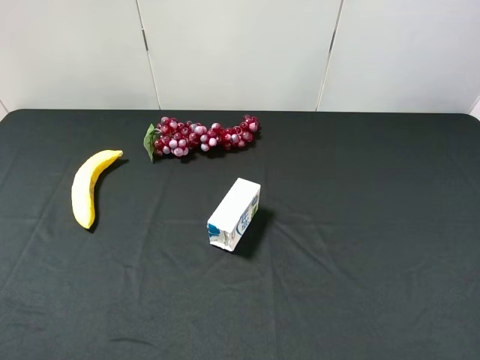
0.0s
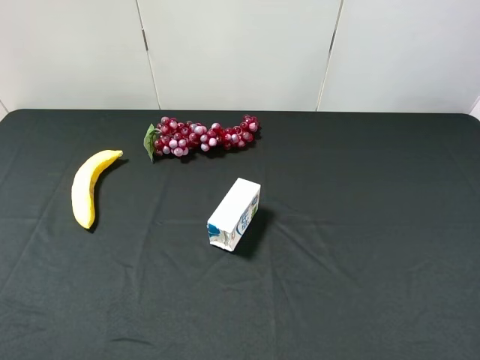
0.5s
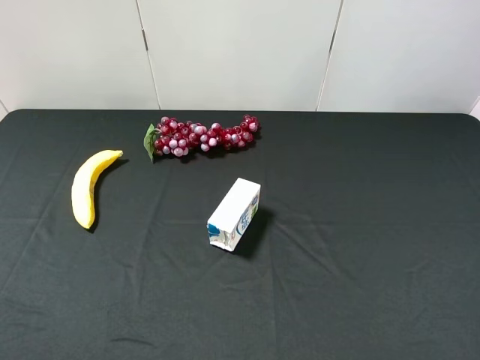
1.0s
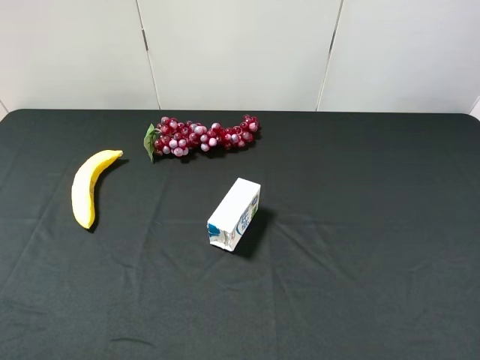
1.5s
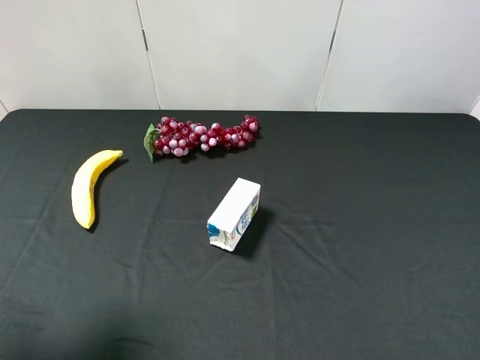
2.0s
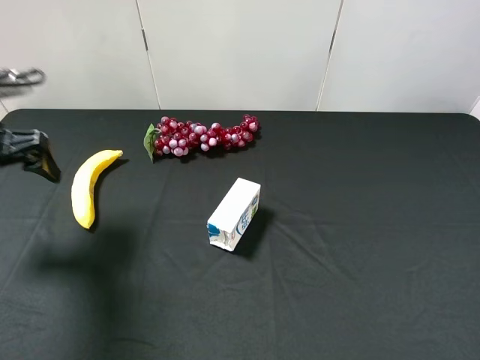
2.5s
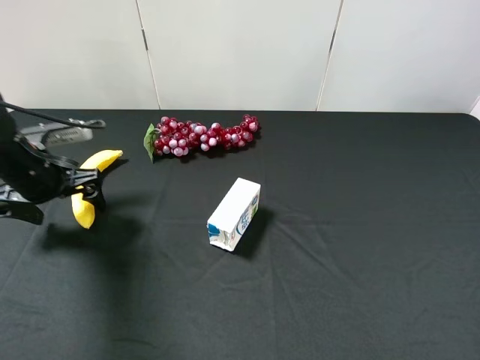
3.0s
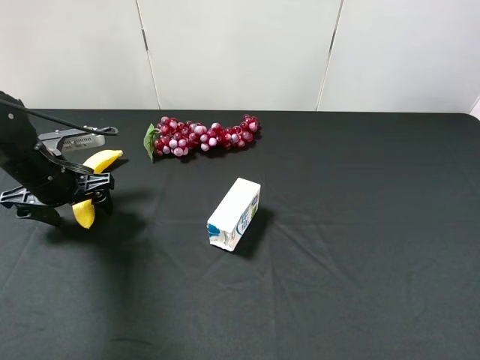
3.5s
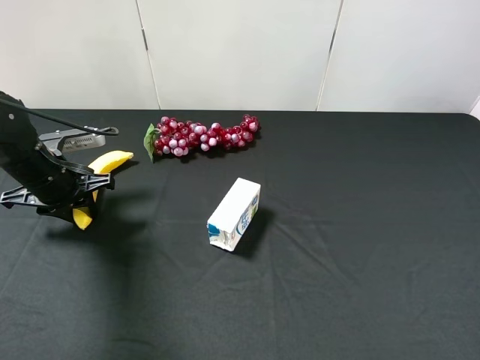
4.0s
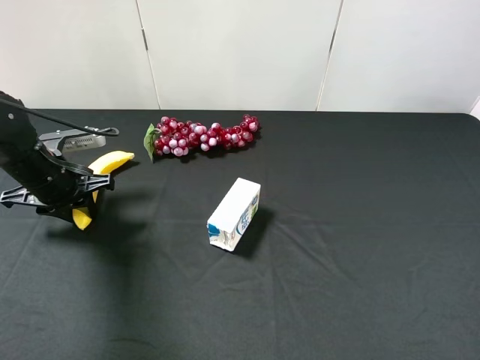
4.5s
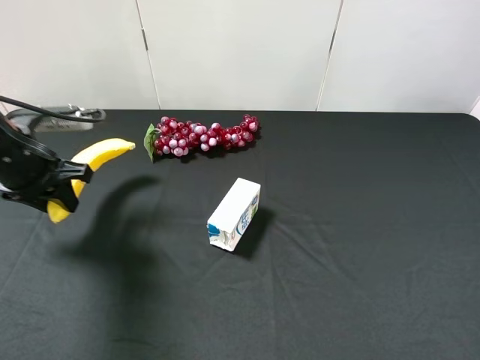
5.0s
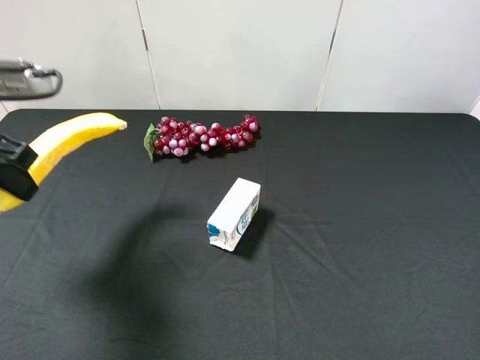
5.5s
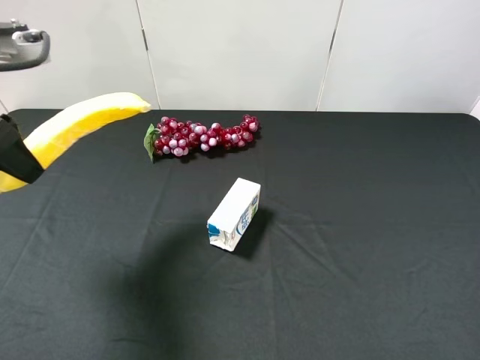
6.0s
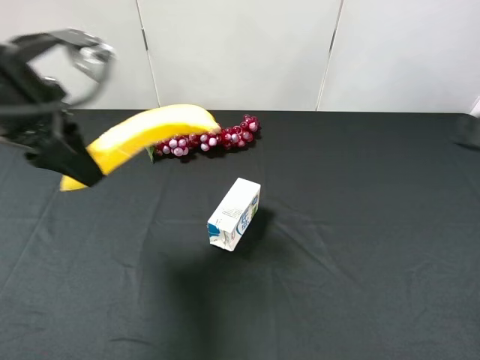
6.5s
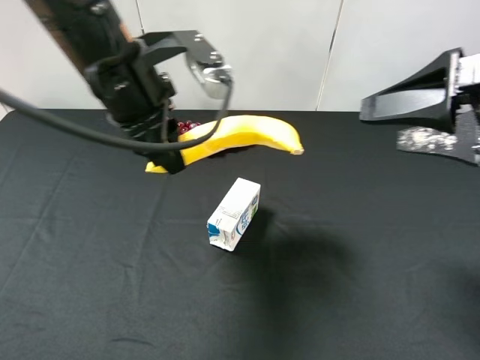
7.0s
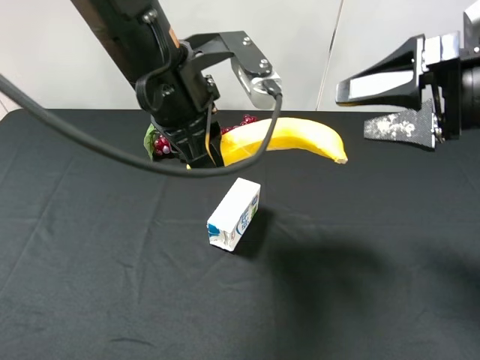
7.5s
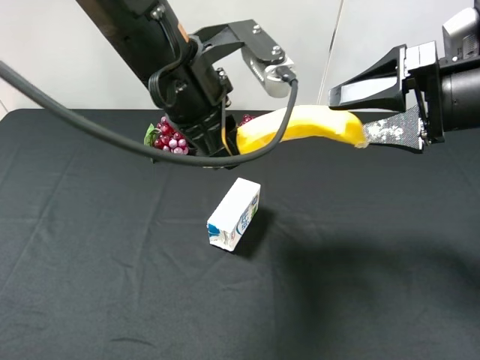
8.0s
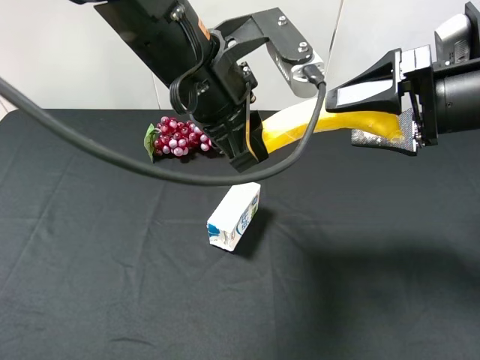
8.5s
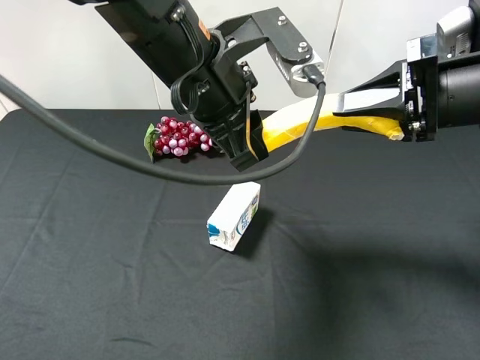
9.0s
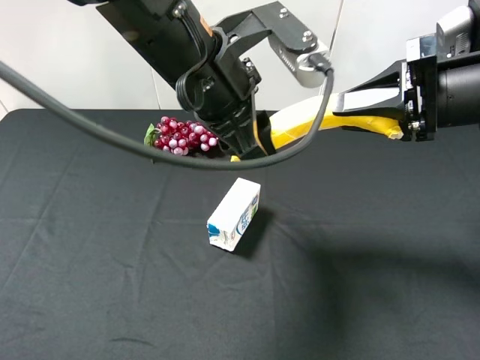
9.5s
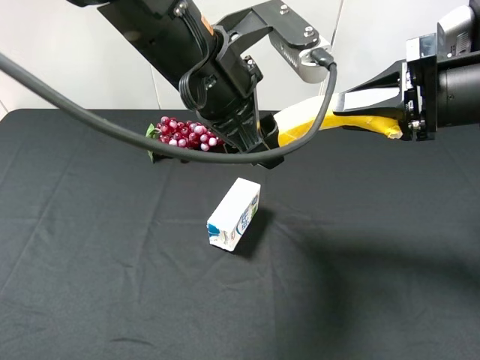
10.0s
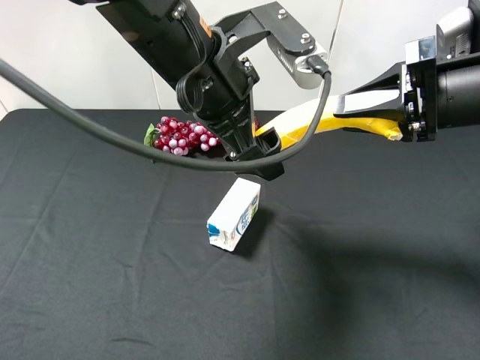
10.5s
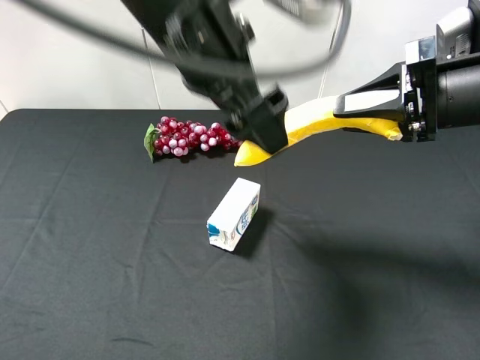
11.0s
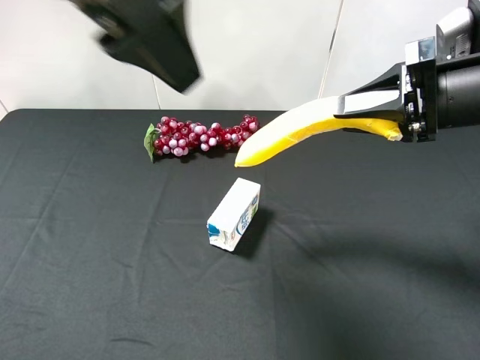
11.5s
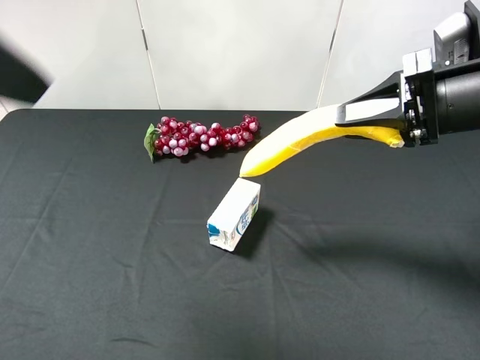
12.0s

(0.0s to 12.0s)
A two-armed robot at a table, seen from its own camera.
Task of the whole recording: use the left gripper to pick up the item and transfer it from the left gripper to the right gripper.
0.0s - 2.0s: The left gripper heads forward, covering approximately 15 cm.
2.0s - 4.0s: The left gripper travels downward and forward by roughly 25 cm, and closes its fingers.
4.0s - 6.0s: The left gripper travels upward and backward by about 20 cm.
6.0s - 8.0s: The right gripper is displaced forward by some 25 cm; the left gripper heads to the right, covering approximately 20 cm.
8.0s - 10.0s: The left gripper opens. The right gripper closes.
10.0s - 12.0s: The left gripper moves to the left, upward and backward, about 25 cm, and opens its fingers.

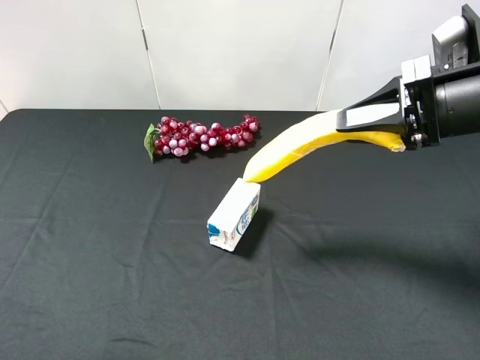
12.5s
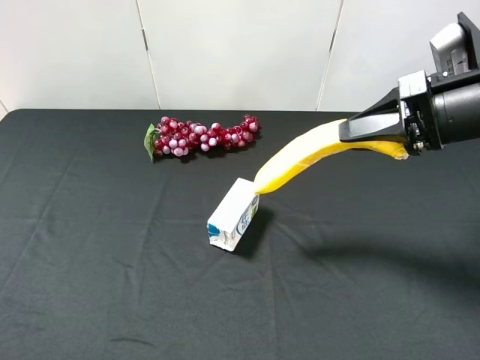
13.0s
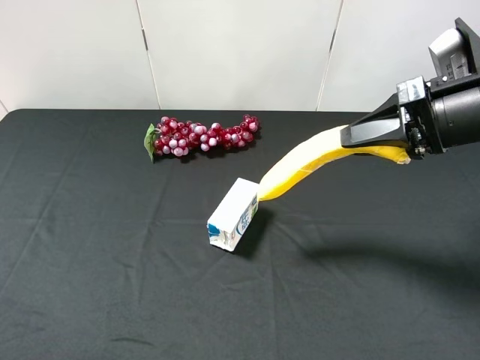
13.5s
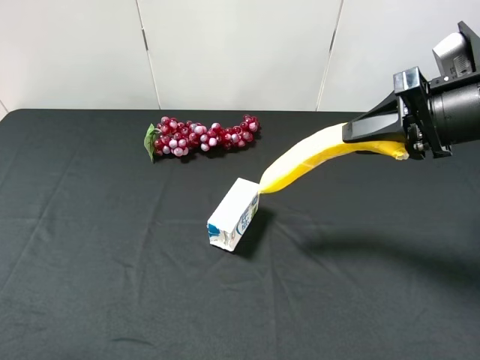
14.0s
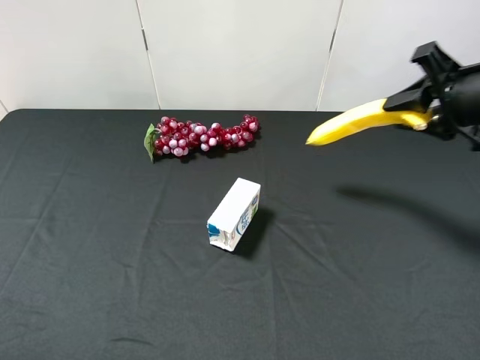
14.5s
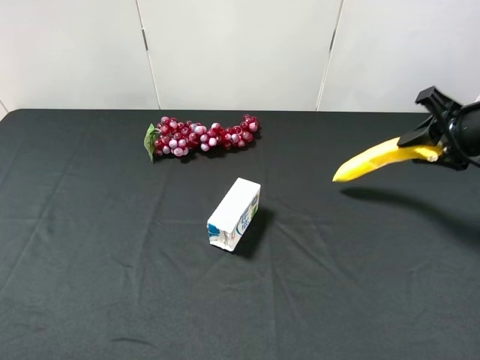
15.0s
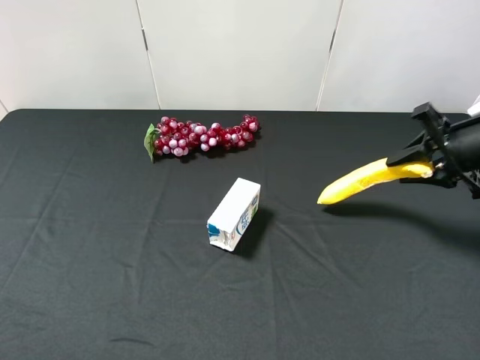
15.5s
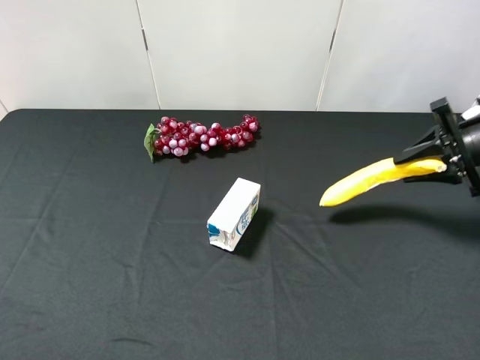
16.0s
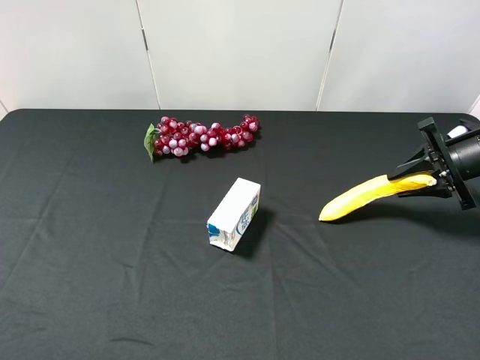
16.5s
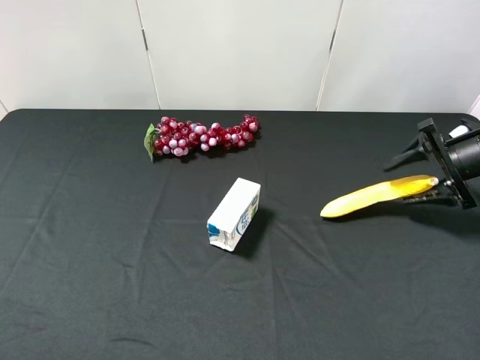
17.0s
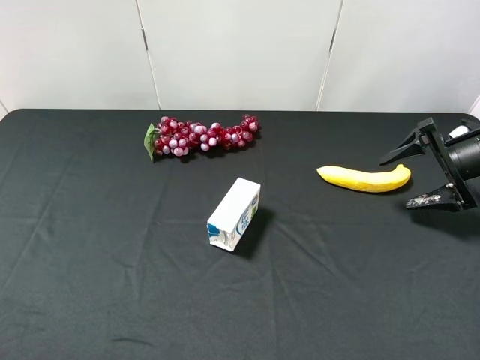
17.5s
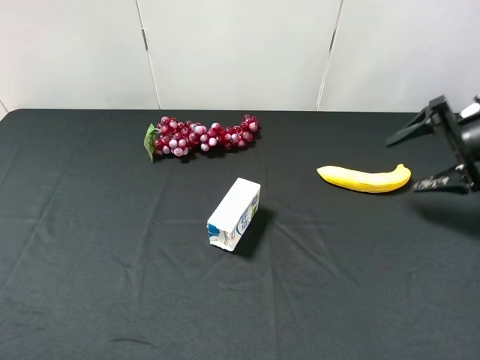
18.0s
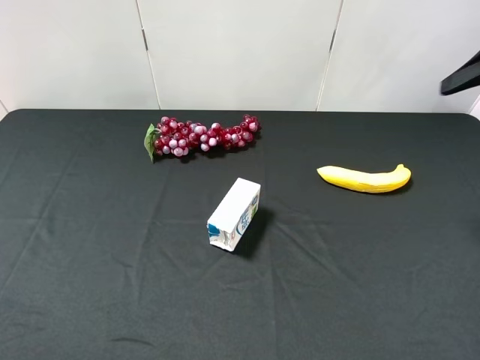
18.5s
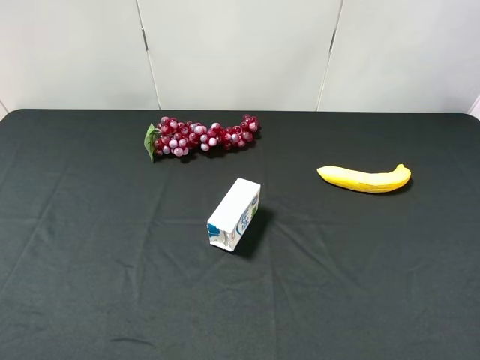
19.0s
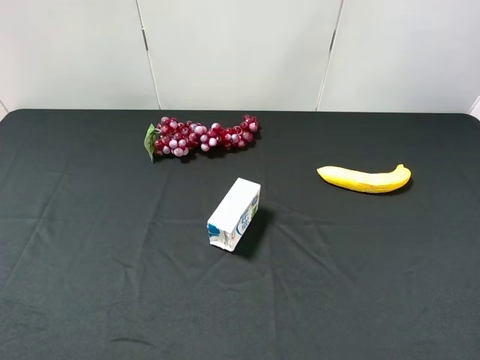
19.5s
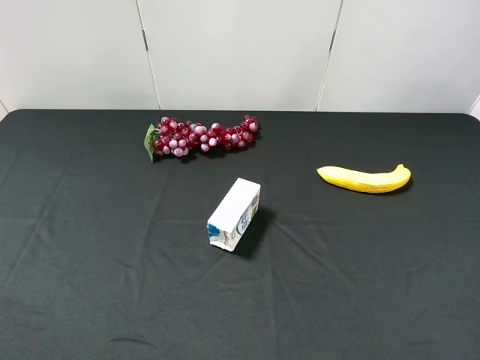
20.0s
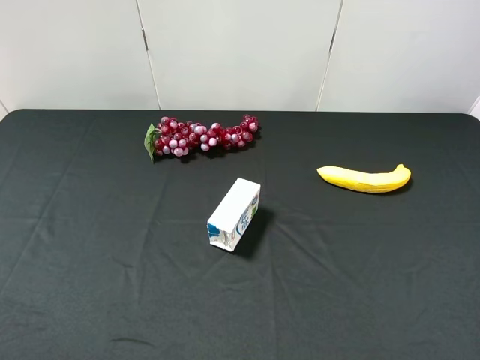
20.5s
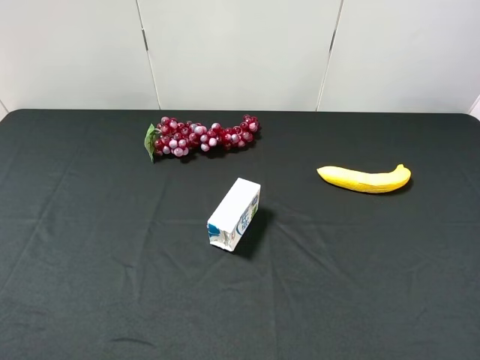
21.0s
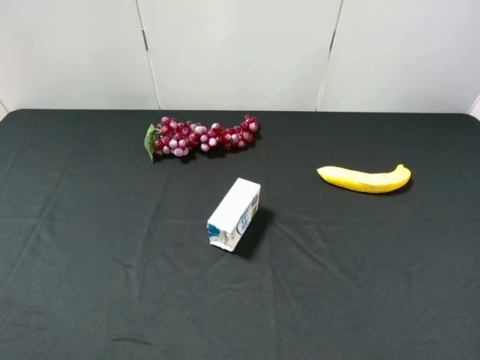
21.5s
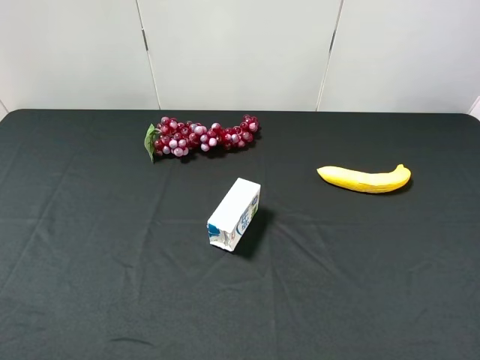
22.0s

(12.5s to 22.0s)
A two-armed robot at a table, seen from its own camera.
Task of the whole recording: use the left gripper to pick up the item and transfer it from the left gripper to the right gripper.
12.5s - 14.5s: The right gripper shifts by about 5 cm. The left gripper shifts by some 5 cm.
14.5s - 16.5s: The right gripper heads downward, to the right and forward, covering about 15 cm.
16.5s - 18.0s: The right gripper opens its fingers.
18.0s - 20.0s: The right gripper moves backward, some 30 cm.
